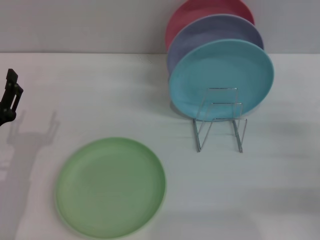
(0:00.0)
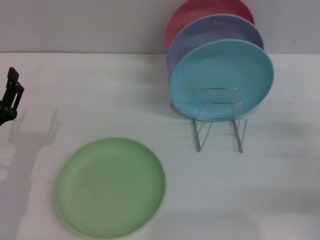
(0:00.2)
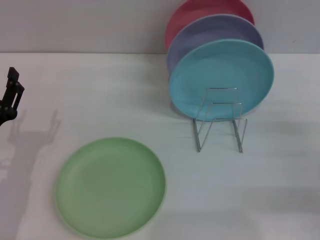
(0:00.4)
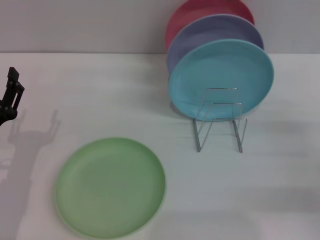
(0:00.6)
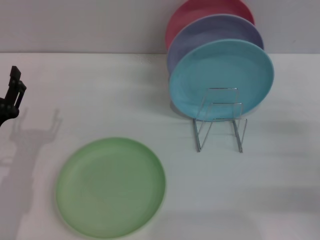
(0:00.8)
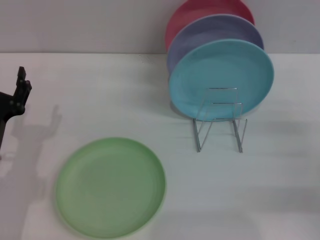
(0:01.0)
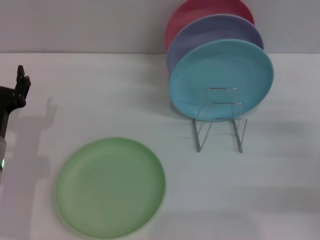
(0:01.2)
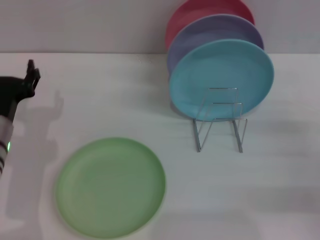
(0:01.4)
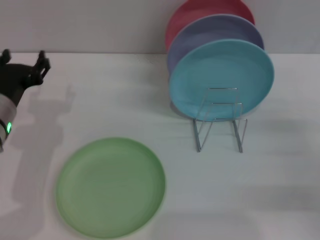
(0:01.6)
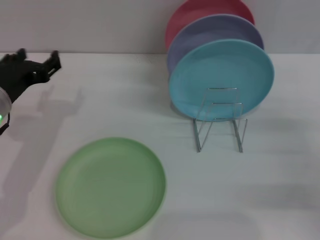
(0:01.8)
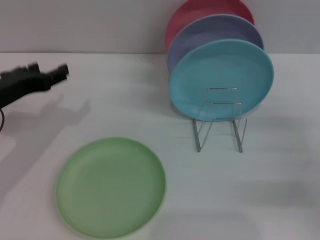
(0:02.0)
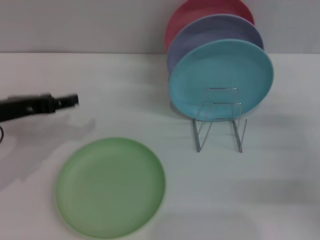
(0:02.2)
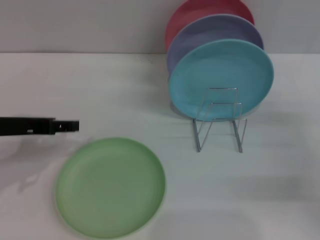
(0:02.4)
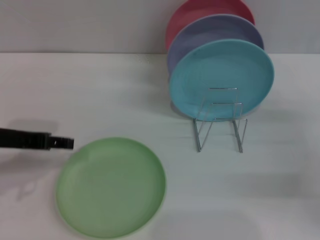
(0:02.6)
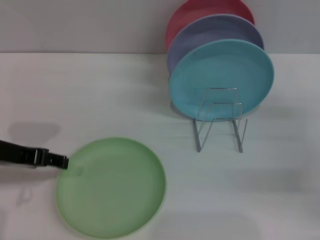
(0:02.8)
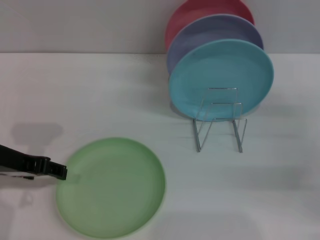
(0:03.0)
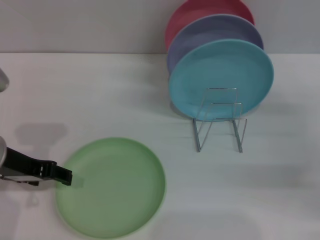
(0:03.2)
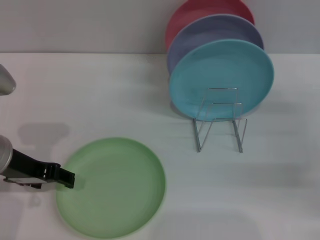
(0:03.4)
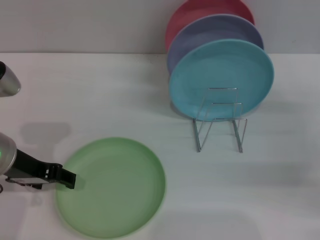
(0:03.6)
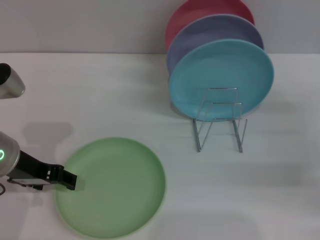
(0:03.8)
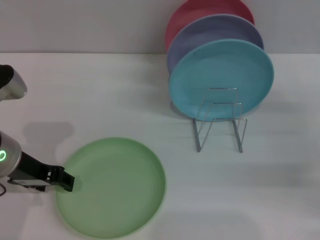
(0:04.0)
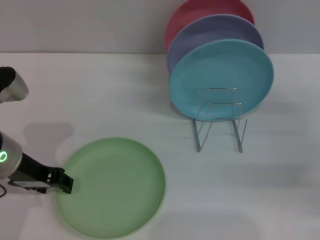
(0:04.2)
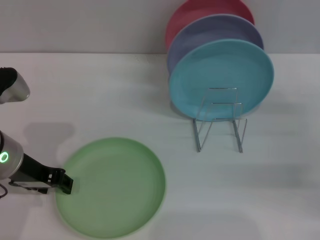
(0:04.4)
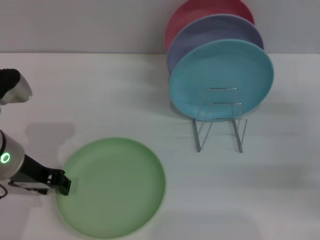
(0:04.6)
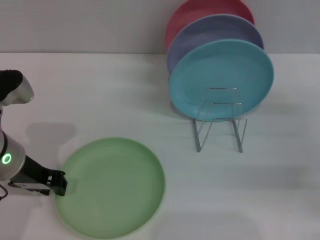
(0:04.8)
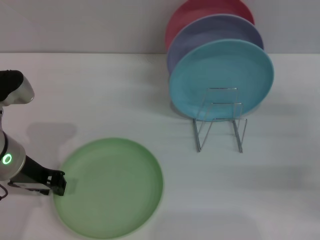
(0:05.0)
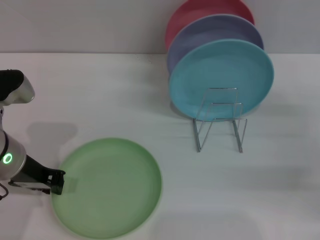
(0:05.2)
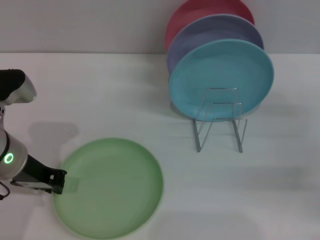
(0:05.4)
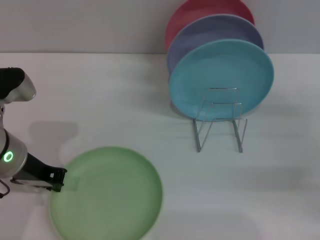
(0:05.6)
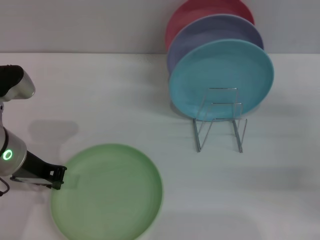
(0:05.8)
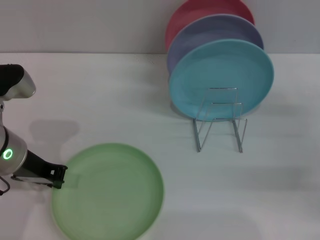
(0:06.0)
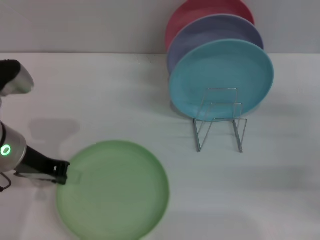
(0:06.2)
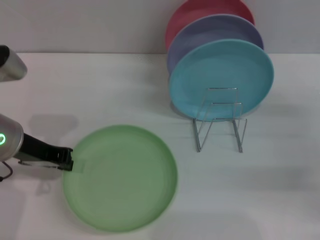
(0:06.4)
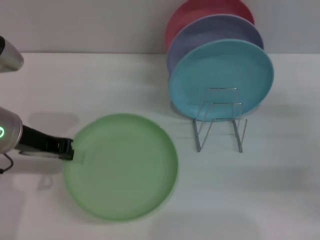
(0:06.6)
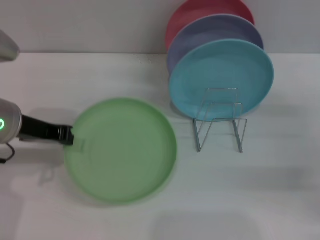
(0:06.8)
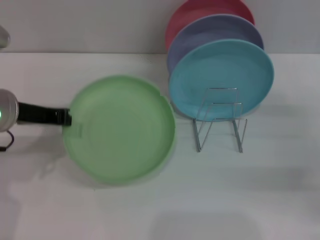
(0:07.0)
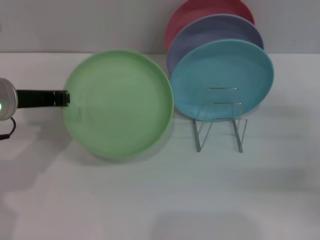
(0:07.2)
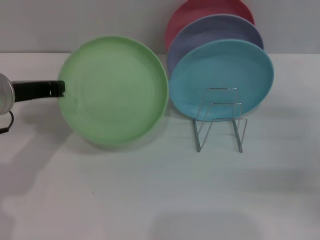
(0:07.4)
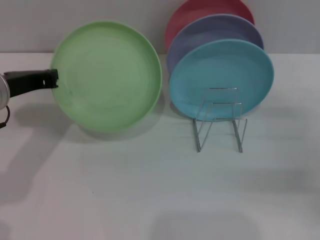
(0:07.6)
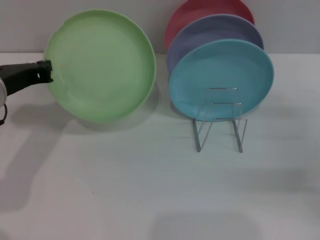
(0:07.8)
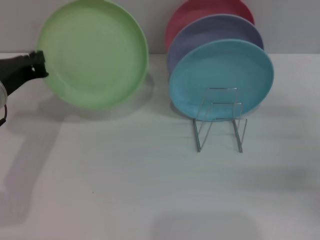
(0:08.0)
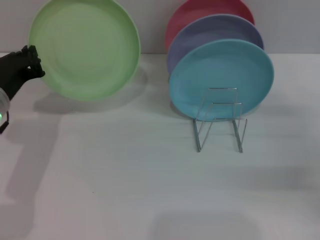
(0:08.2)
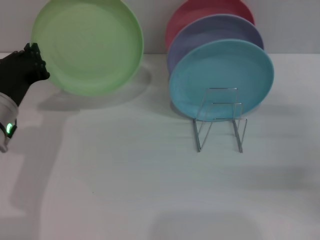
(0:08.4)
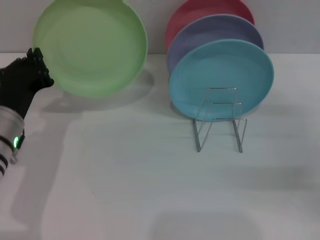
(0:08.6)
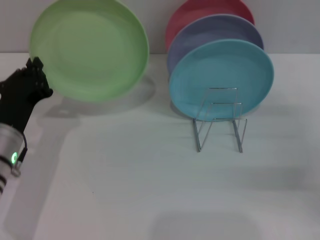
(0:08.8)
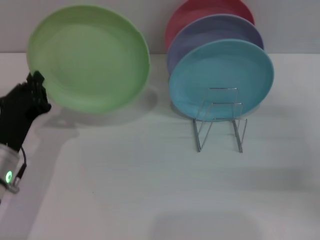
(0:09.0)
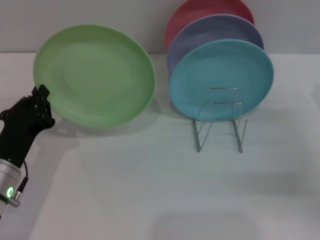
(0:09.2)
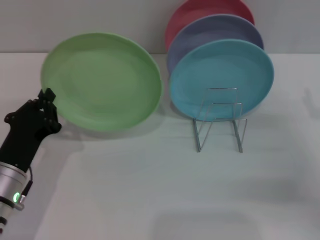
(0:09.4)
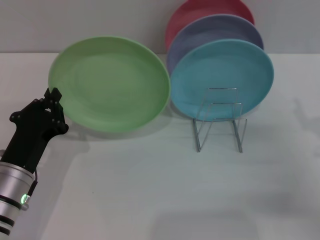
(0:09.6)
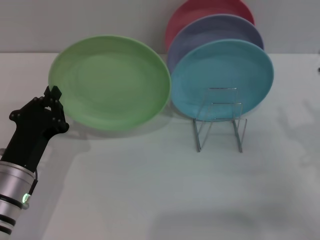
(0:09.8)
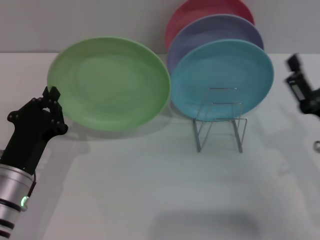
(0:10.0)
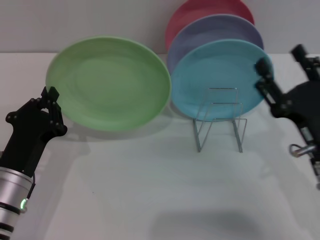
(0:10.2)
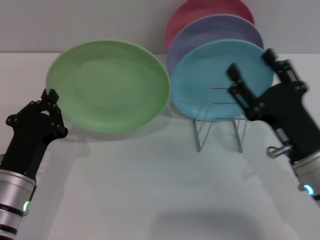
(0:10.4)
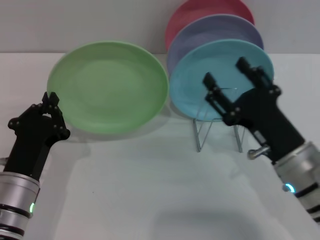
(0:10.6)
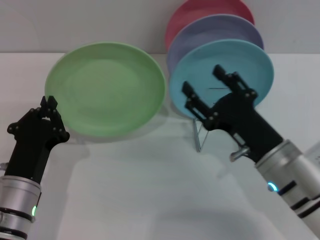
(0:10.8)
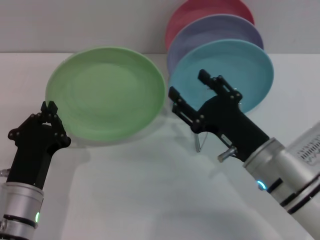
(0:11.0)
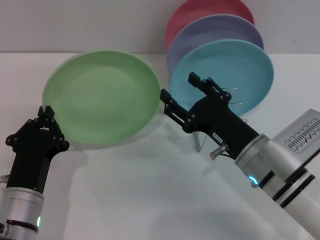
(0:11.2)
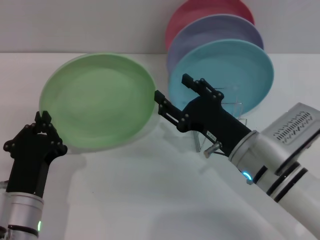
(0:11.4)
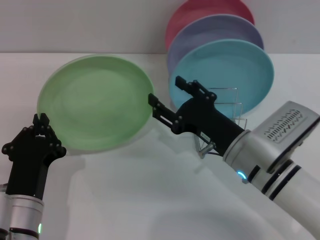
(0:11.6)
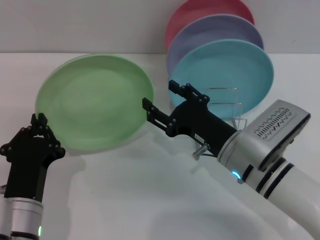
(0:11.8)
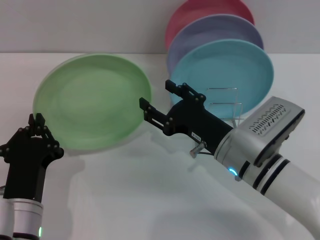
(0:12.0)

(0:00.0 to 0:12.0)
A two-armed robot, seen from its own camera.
Task of the whole recording: Grip the plate with one hand, pass it to the other, then set it on the shelf.
Step, 0:00.0 - 0:06.8: Pick up the plate with the left gripper.
0:00.0 - 0:01.6: The left gripper heads forward and upward, covering approximately 10 cm.
0:01.6 - 0:03.0: The left gripper is displaced upward by approximately 5 cm.
0:03.0 - 0:04.4: The grippers make only small movements.
0:04.4 - 0:06.0: The left gripper closes its fingers.
0:07.6 - 0:09.0: The left gripper shifts about 15 cm downward and backward.
0:09.0 - 0:10.4: The right gripper is displaced to the left by about 15 cm.
0:10.4 - 0:12.0: The right gripper moves to the left and forward, roughly 10 cm. Meanwhile the left gripper shifts by roughly 5 cm.

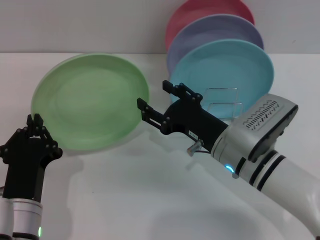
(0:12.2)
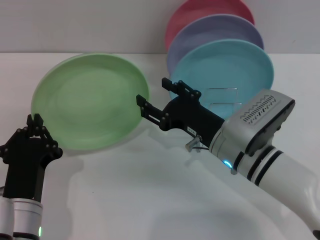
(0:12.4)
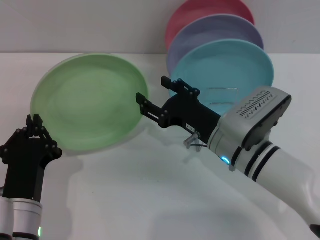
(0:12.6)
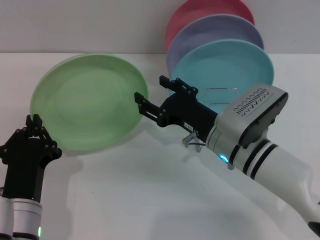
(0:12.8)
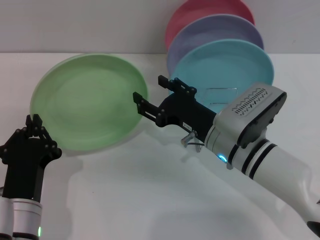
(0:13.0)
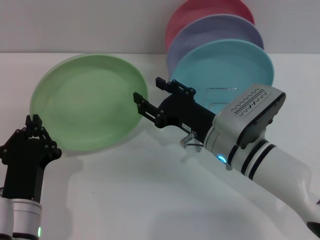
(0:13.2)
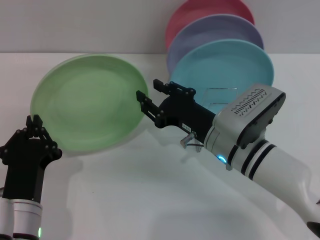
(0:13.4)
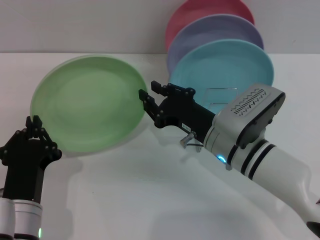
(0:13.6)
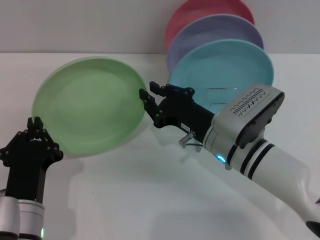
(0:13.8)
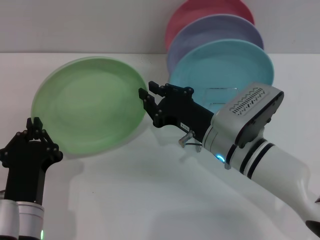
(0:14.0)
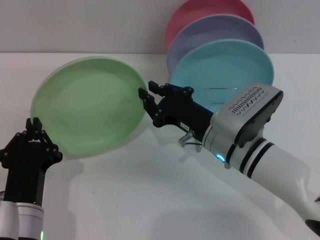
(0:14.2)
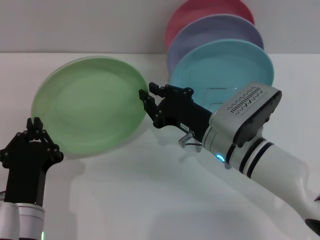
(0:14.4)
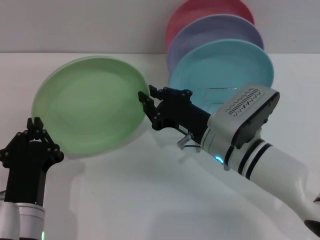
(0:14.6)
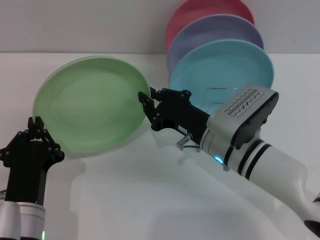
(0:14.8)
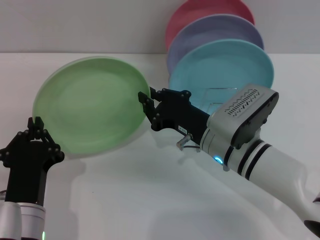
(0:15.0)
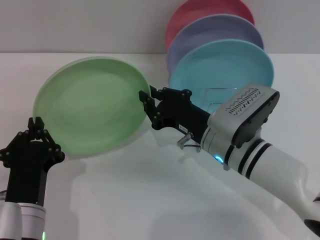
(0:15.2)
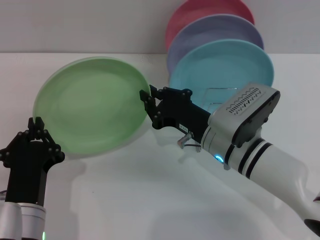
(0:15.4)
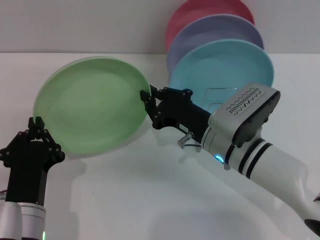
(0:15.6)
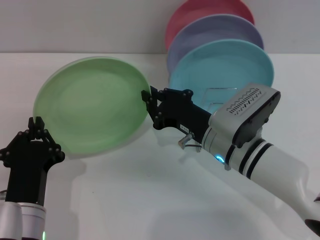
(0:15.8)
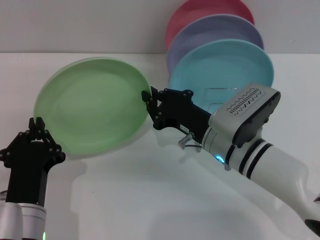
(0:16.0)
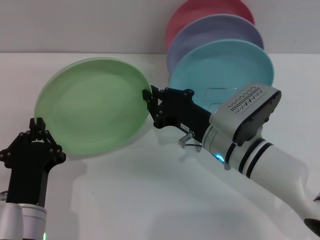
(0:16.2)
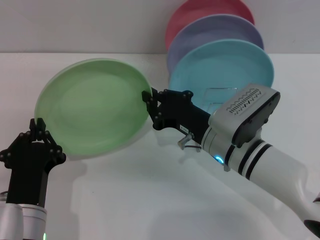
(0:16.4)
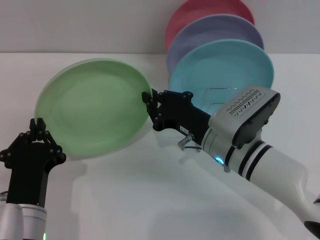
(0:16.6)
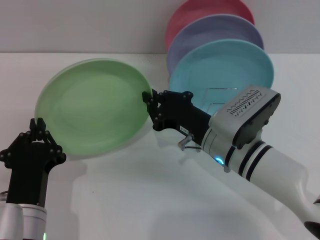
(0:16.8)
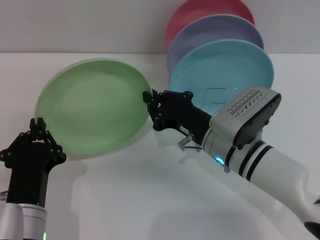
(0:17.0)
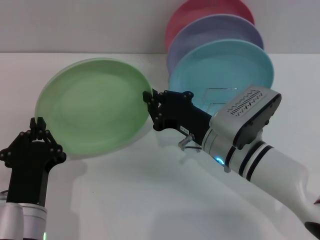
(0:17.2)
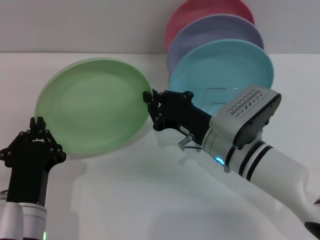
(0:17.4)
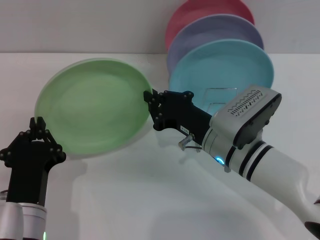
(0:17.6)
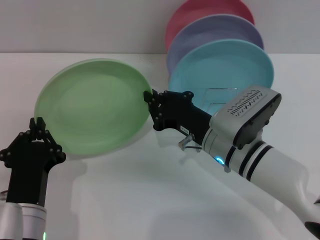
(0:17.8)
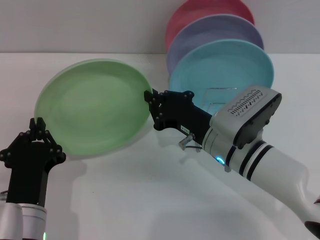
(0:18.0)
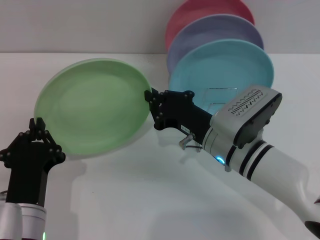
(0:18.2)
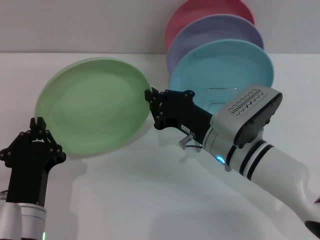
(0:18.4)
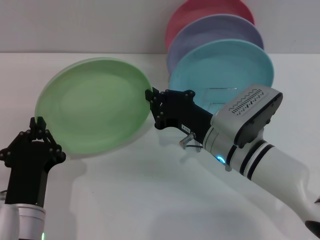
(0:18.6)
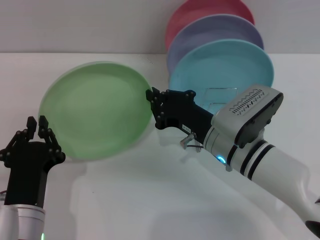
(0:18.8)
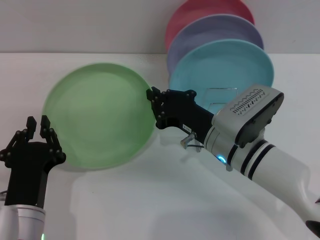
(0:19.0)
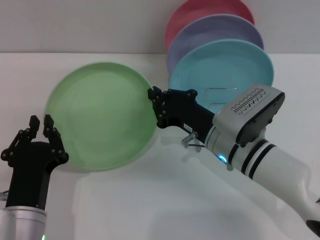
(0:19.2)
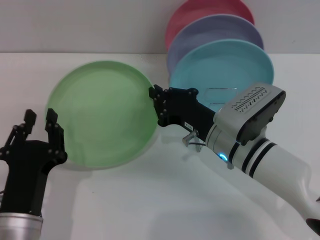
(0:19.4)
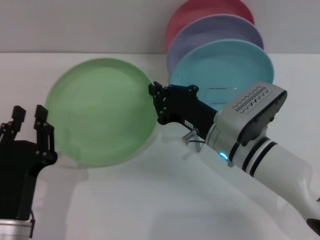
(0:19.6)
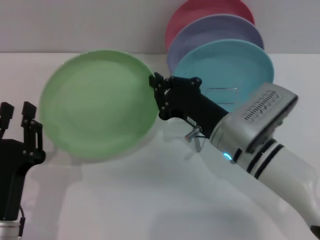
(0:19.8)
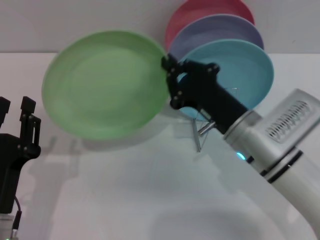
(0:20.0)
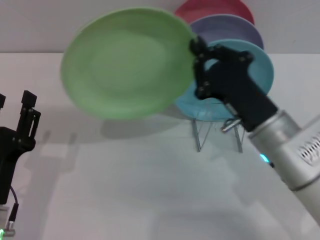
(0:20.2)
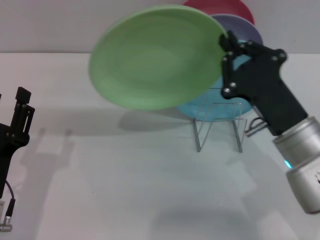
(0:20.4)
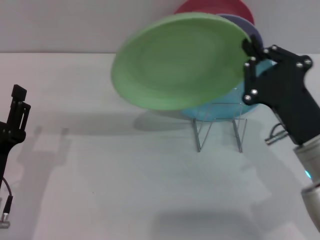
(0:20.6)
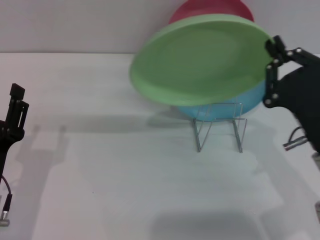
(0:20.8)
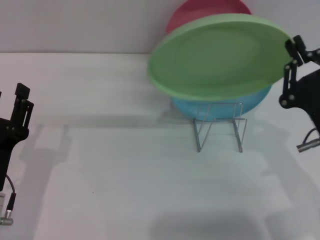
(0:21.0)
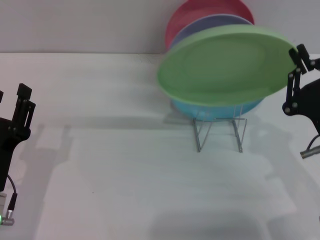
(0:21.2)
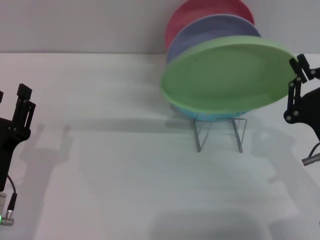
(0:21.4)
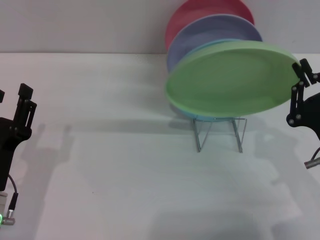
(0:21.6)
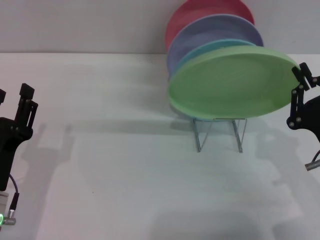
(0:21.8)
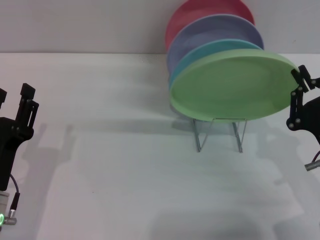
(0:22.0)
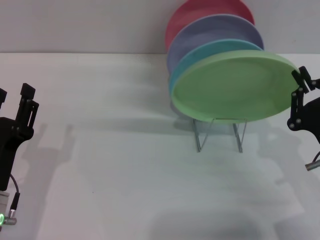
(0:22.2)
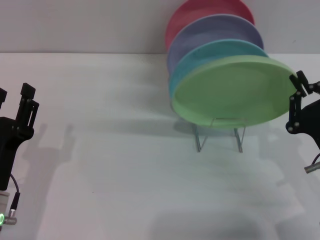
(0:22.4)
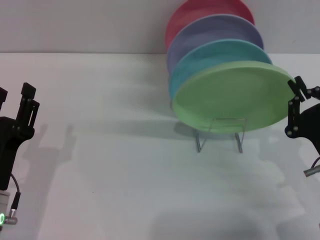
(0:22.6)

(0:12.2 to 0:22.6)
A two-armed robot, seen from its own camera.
Task of the whole recording: Grip the plate with one hand, pass it to the other, then set it on the shelf.
Step, 0:12.2 - 0:20.0: Pass the plate from the left gripper to the right gripper.
0:12.2 - 0:13.6: The right gripper closes up.
0:13.6 - 0:18.2: Both grippers stay put.
0:18.2 - 0:19.6: The grippers move only a little.
0:19.6 - 0:21.2: The left gripper shifts by about 5 cm, and opens. Meanwhile the right gripper is displaced to the right and backward by about 15 cm.
0:21.2 - 0:22.6: The grippers move only a little.
